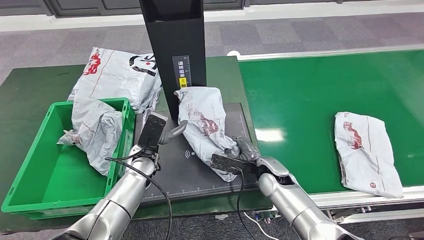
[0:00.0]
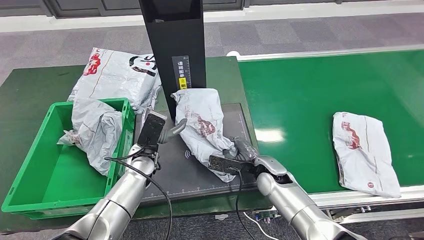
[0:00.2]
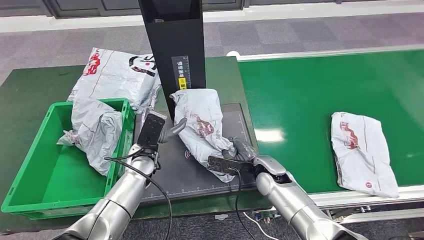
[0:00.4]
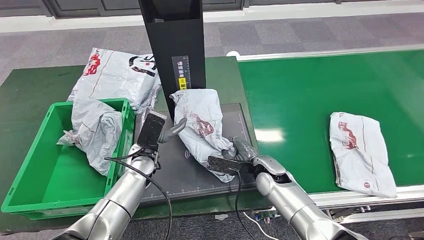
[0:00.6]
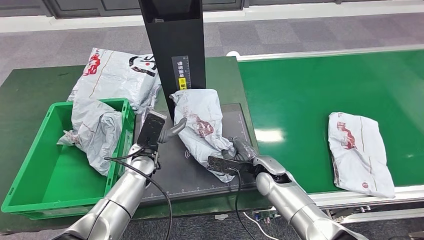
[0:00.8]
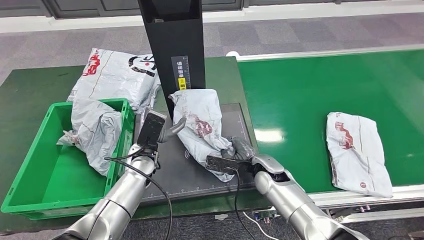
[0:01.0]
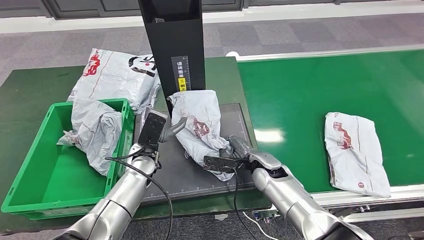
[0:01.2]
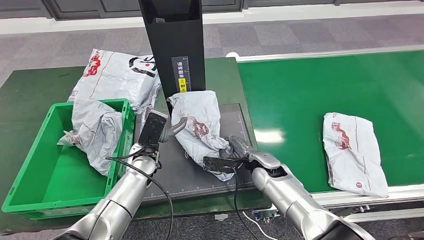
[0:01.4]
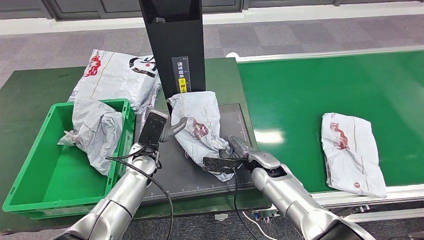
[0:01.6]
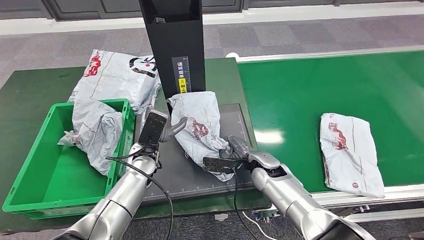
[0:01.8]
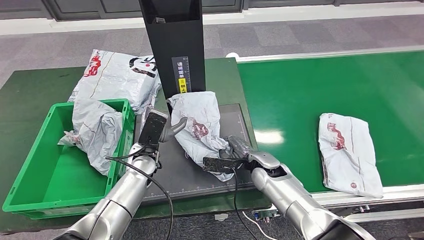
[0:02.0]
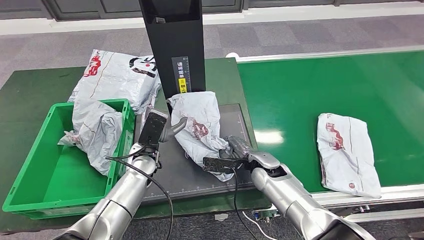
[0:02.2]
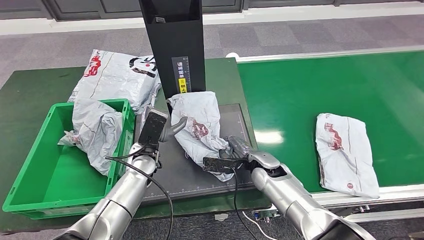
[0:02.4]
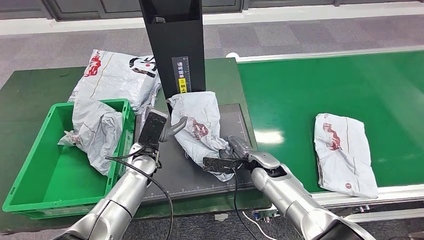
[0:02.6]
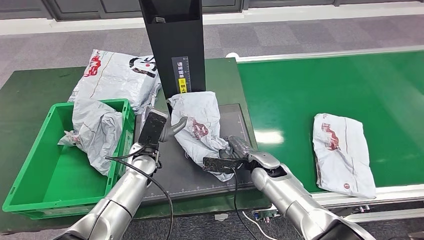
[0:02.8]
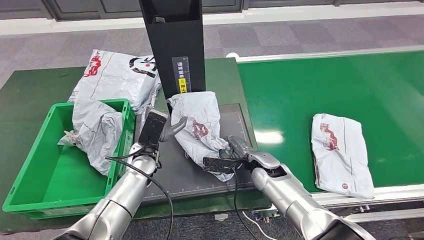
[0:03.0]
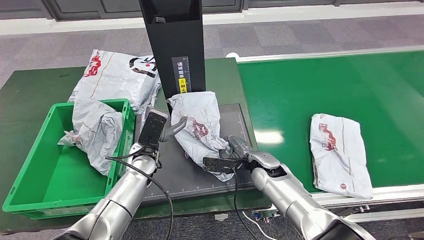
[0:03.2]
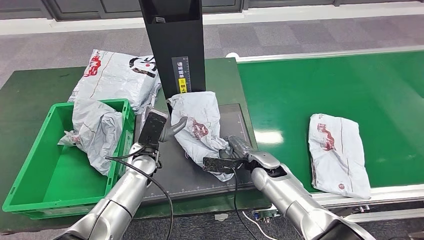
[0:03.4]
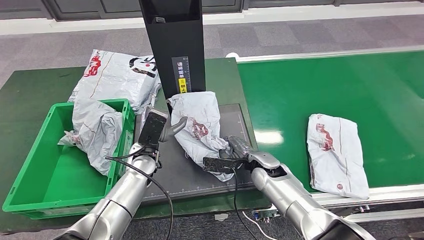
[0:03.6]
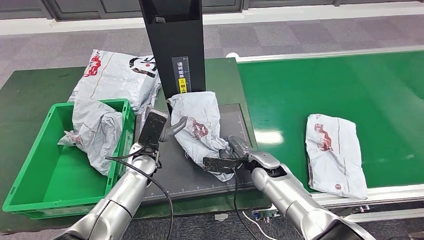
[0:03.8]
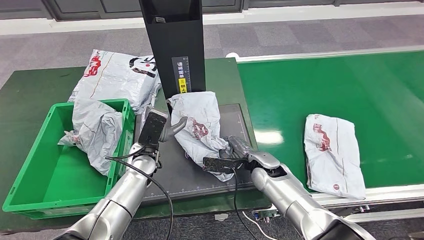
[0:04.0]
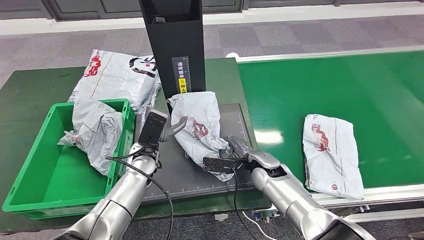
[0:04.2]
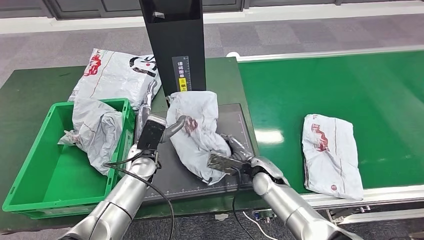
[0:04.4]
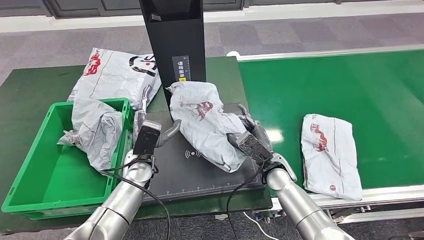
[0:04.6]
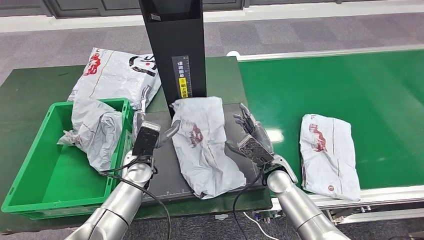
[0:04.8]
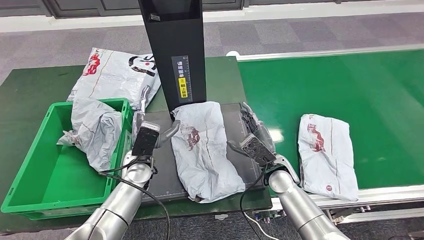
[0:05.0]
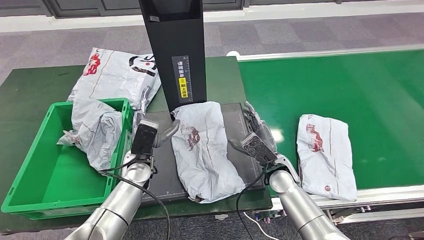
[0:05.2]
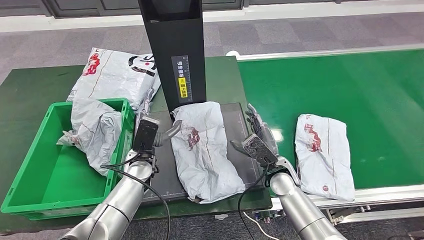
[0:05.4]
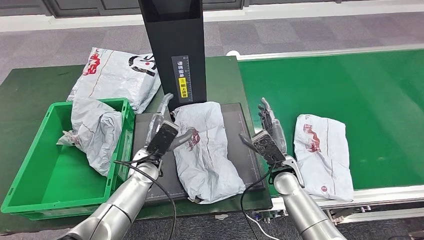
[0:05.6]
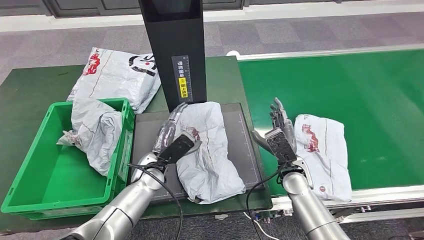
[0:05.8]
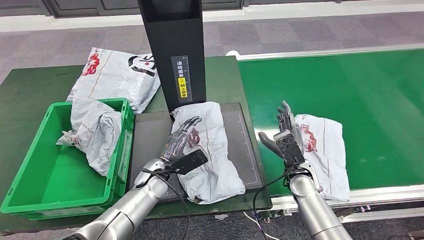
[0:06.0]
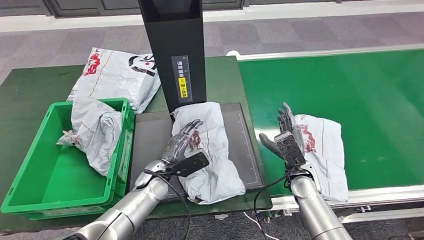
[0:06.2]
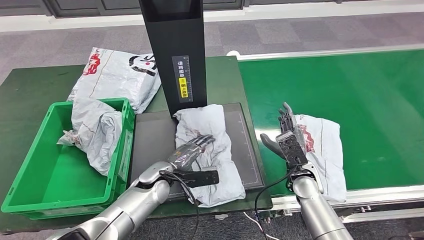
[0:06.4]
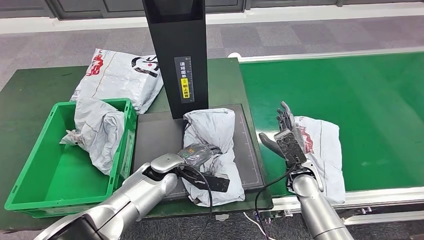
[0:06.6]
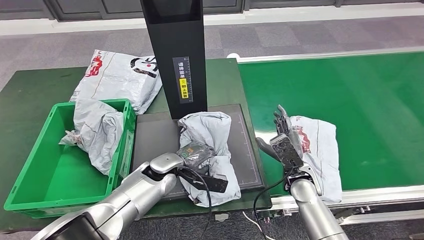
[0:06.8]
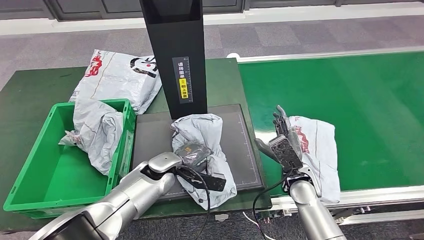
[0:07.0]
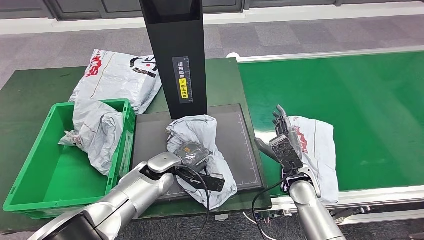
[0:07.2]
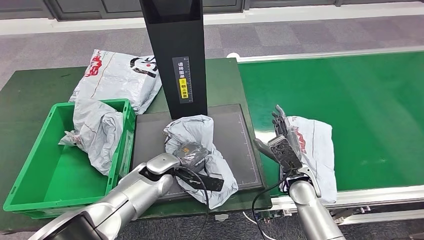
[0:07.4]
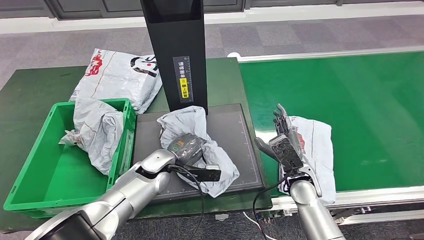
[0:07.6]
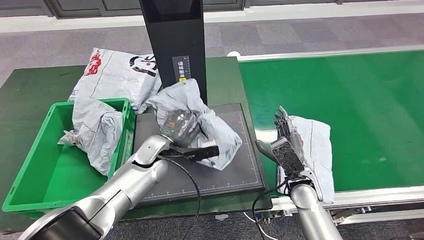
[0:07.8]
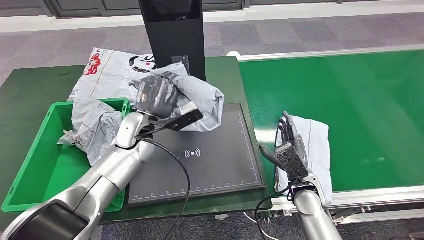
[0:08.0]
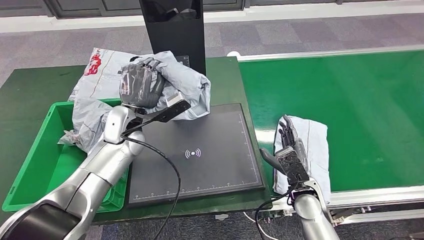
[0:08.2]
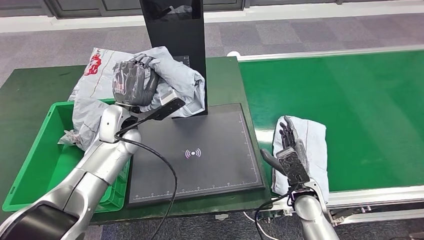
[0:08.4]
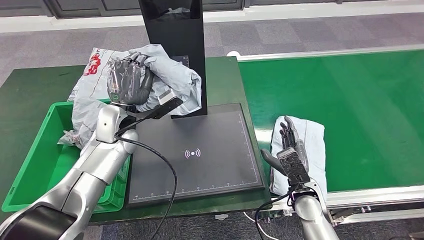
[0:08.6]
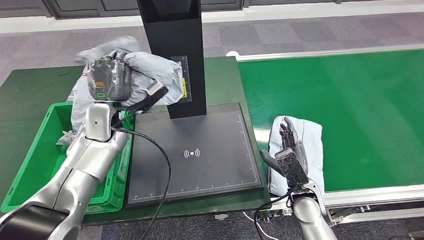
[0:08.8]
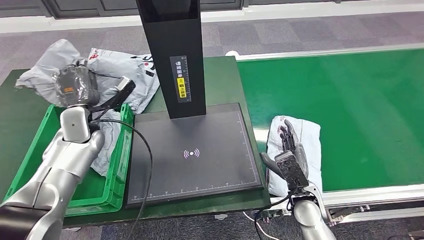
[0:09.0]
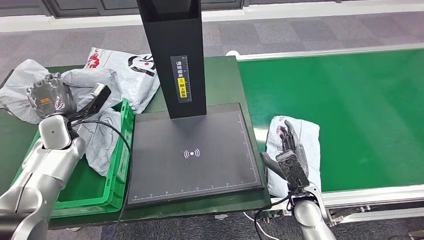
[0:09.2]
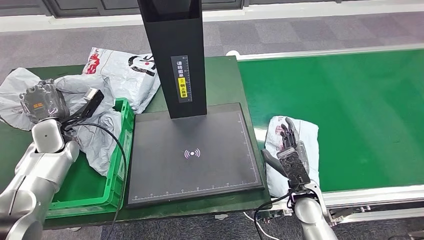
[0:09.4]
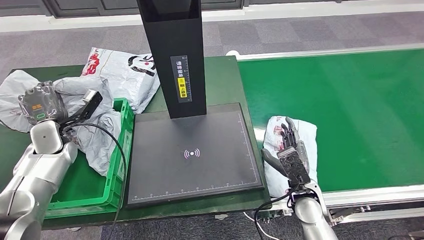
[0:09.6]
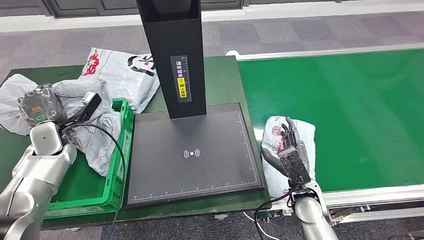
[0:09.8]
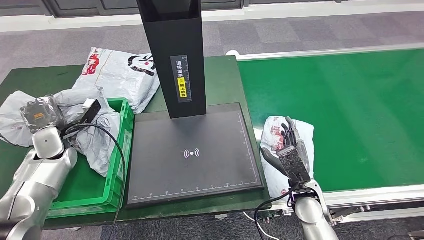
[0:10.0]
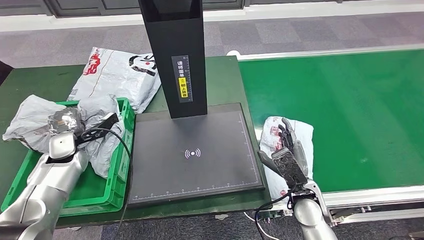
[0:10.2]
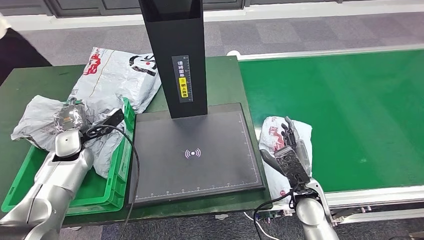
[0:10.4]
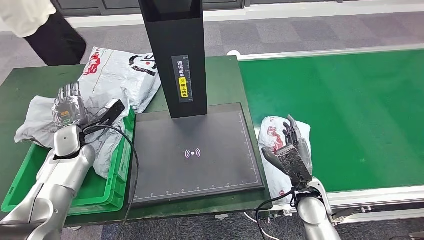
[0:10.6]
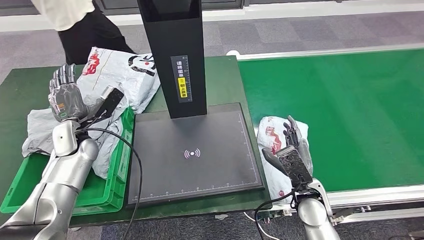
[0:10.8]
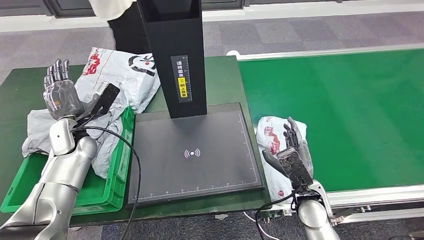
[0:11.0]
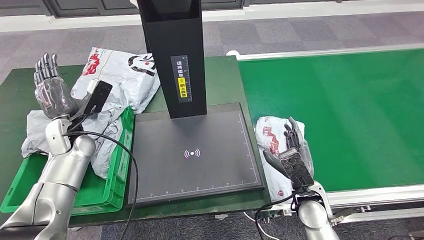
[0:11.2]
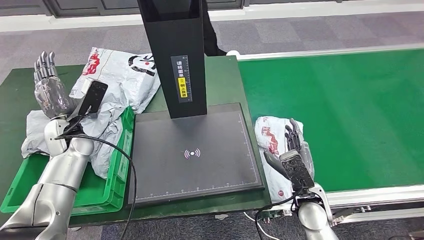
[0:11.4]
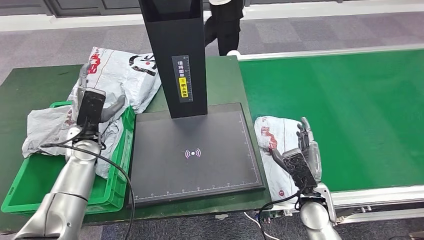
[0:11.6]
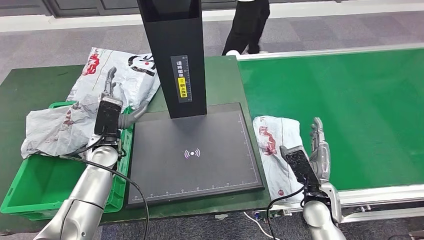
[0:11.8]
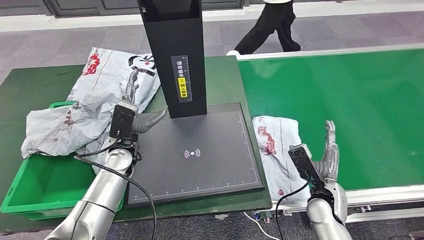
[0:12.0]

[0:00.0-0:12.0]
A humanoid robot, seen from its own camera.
Step, 0:04.8 to 0:08.2: Pick up the parcel from the inbound machine.
Step, 0:08.4 to 0:11.2: Place the parcel into the delivery box.
0:00.0 to 0:01.6: There are only small adjustments of the hands.
0:01.6 to 0:03.0: Neither hand changes place.

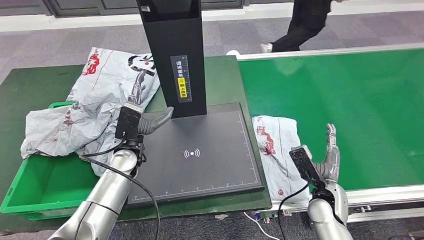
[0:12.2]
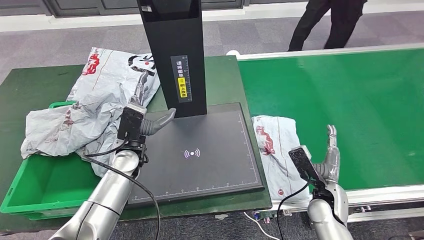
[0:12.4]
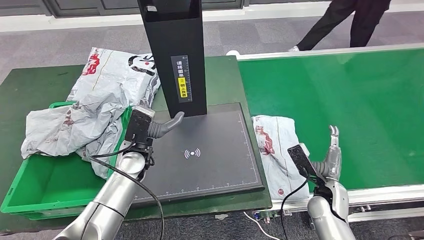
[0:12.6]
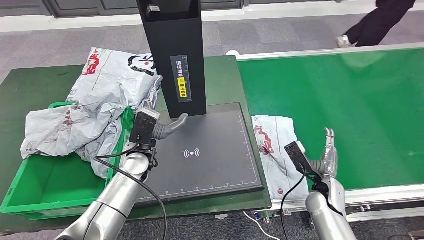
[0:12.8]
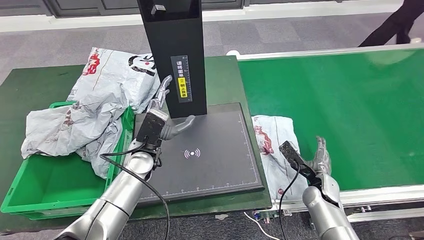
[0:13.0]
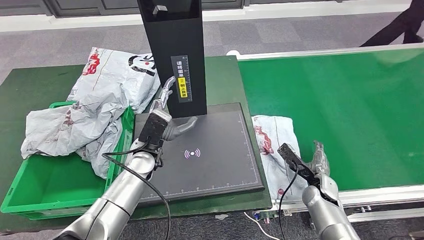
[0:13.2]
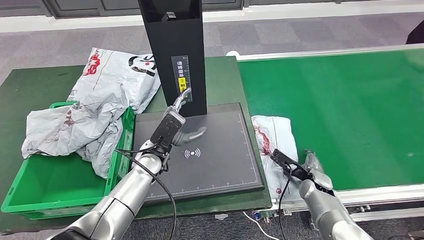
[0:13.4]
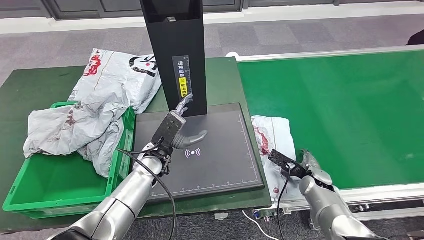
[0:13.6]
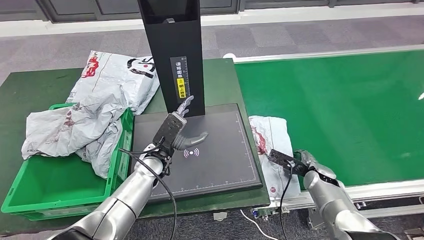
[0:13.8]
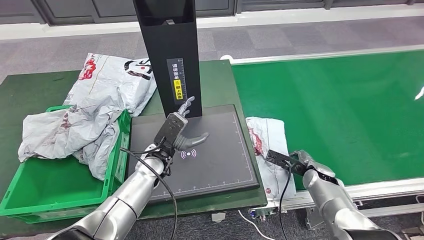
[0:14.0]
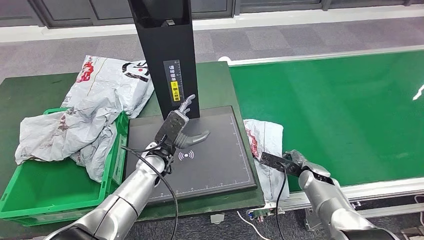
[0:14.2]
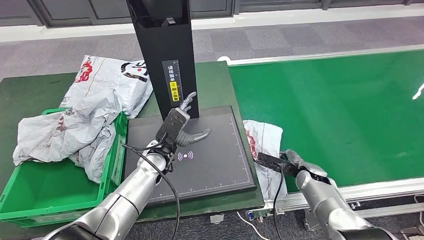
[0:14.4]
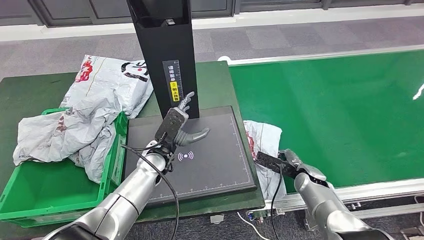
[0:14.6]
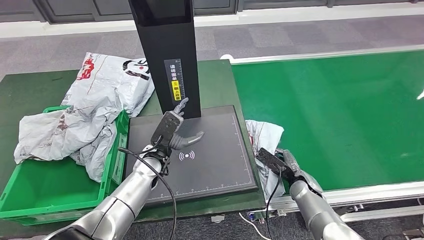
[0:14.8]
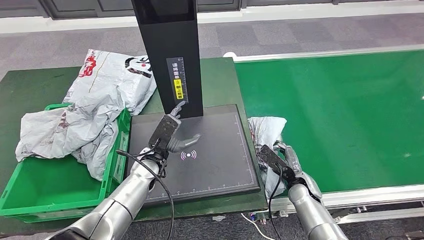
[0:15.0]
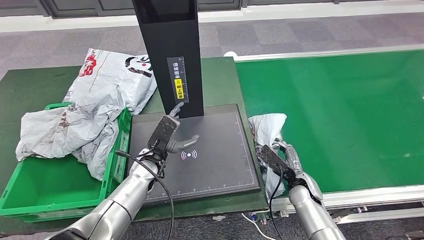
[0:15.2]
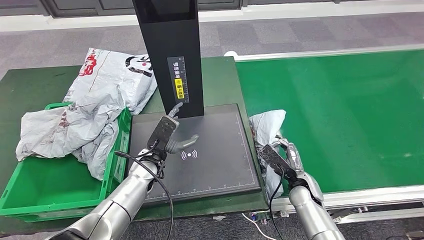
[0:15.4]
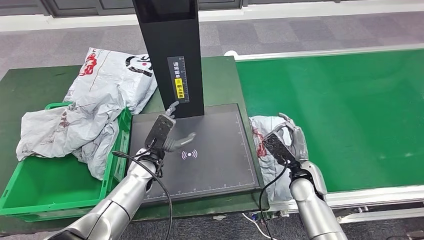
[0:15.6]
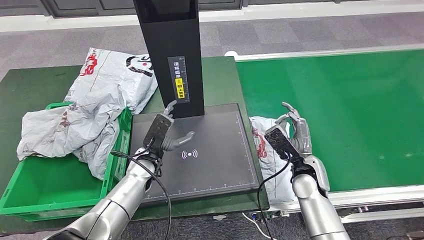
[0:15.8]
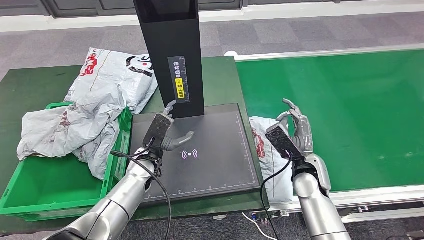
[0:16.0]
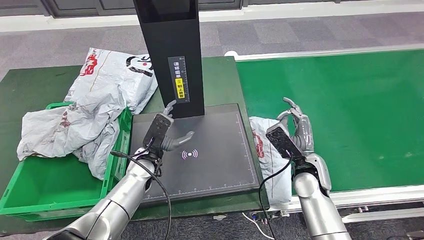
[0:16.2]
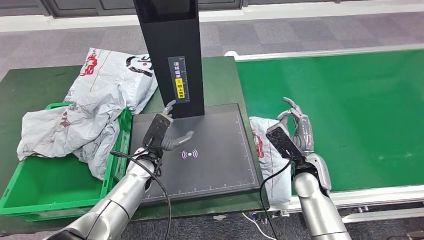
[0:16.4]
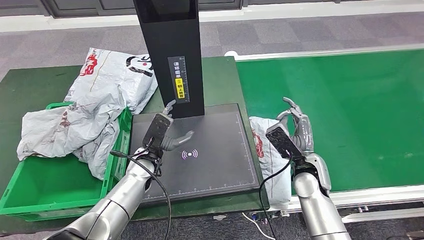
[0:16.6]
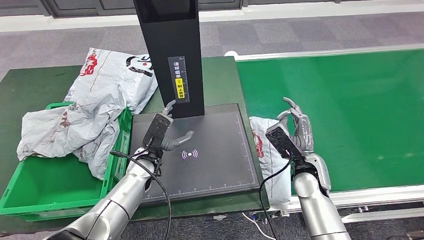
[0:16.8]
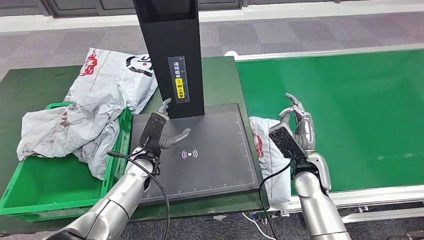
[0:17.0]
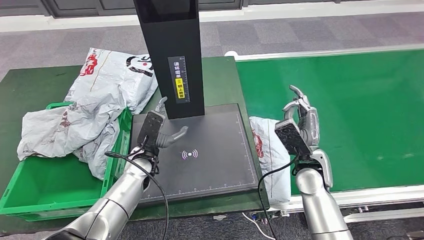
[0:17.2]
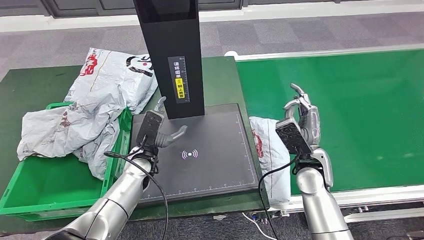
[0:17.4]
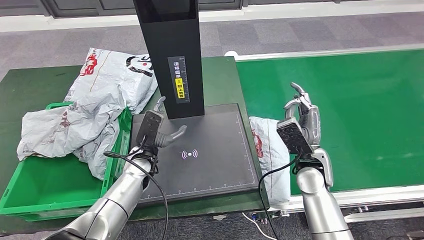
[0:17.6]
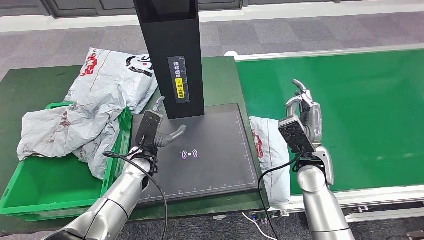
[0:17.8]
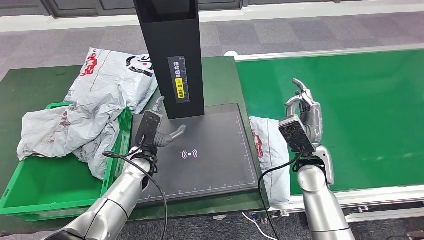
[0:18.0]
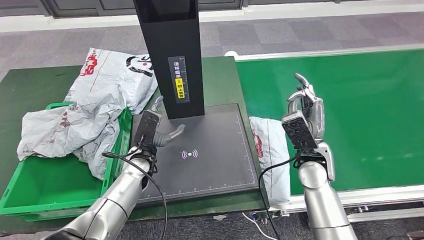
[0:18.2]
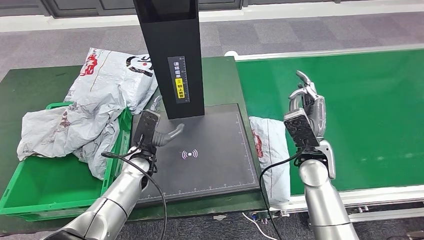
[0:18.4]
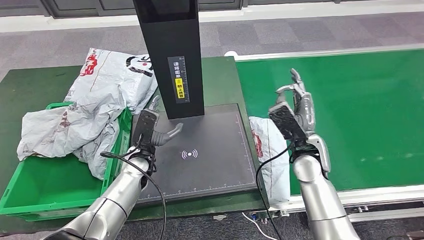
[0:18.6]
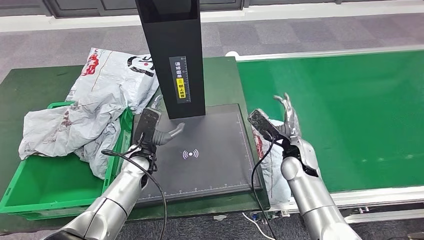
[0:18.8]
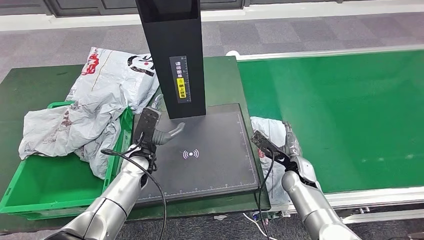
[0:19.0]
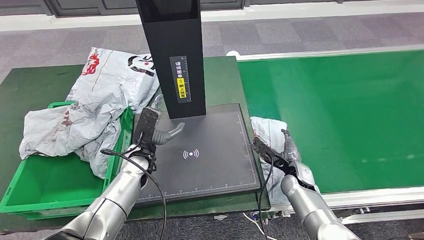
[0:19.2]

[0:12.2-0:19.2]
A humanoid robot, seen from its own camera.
0:15.0 to 0:16.4: The right hand is displaced upward by approximately 10 cm.
0:16.4 to 0:17.8: The hands stay close to where they were, moving slightly.
0:17.8 to 0:19.2: The right hand goes some 10 cm downward.
